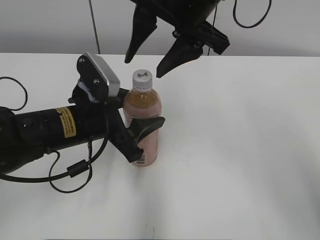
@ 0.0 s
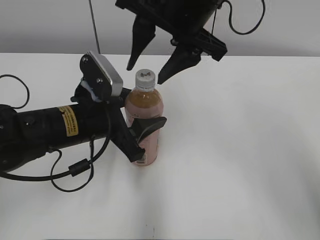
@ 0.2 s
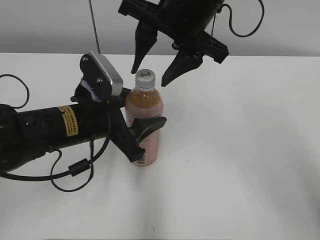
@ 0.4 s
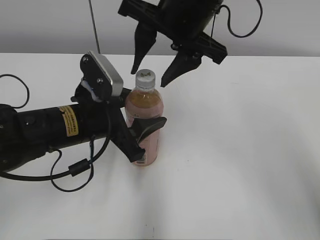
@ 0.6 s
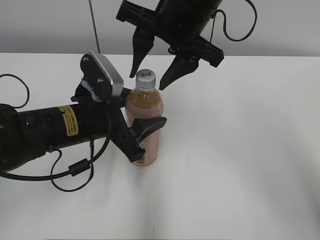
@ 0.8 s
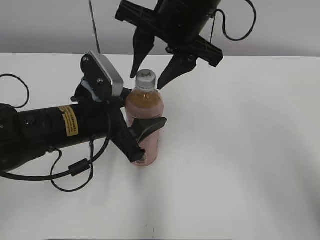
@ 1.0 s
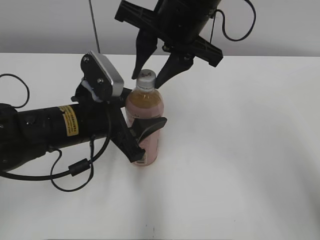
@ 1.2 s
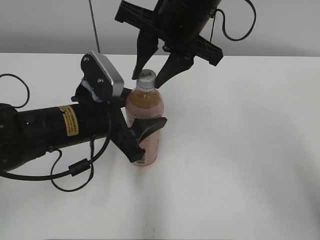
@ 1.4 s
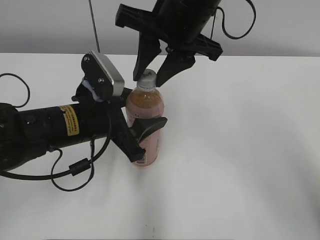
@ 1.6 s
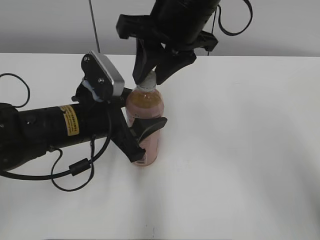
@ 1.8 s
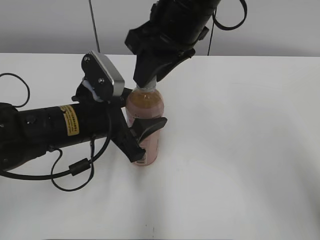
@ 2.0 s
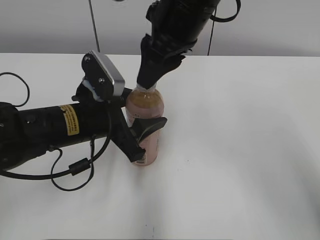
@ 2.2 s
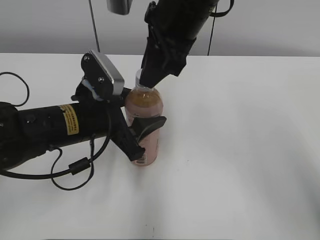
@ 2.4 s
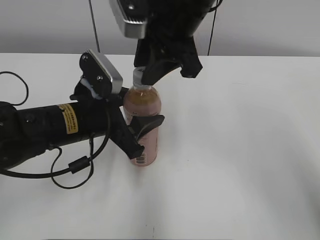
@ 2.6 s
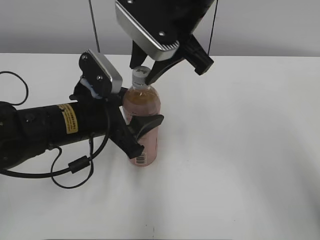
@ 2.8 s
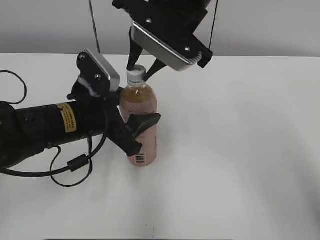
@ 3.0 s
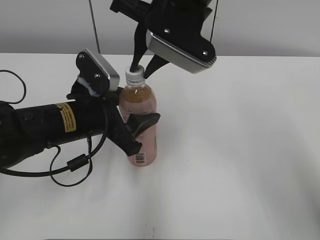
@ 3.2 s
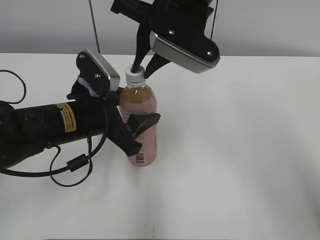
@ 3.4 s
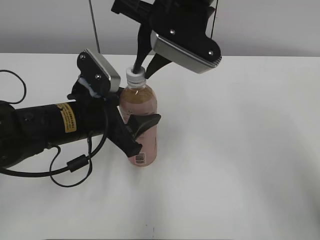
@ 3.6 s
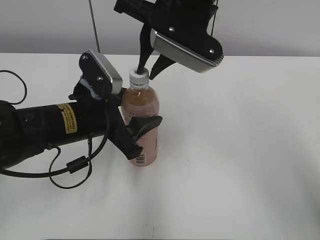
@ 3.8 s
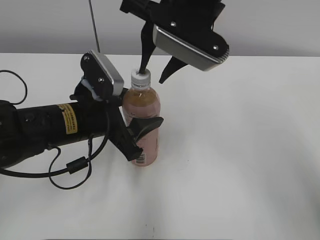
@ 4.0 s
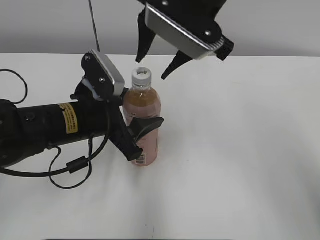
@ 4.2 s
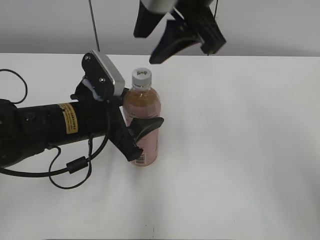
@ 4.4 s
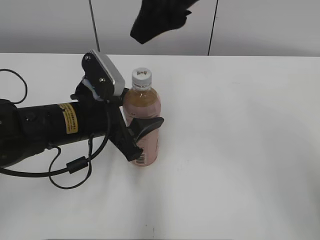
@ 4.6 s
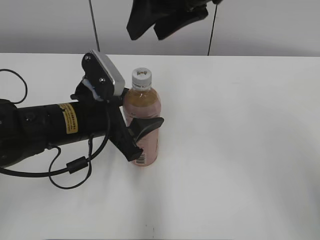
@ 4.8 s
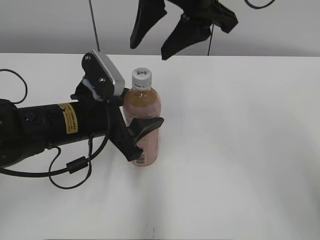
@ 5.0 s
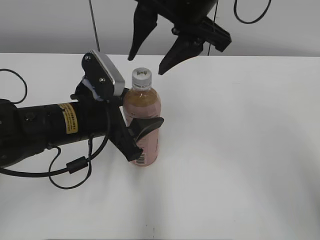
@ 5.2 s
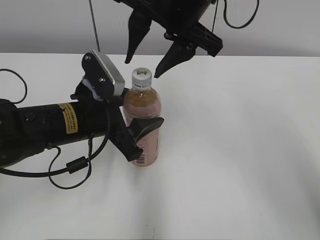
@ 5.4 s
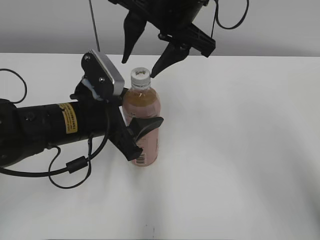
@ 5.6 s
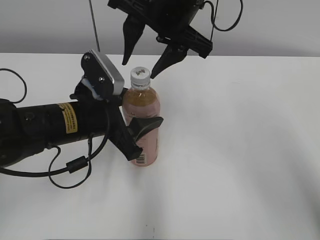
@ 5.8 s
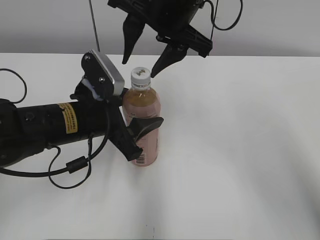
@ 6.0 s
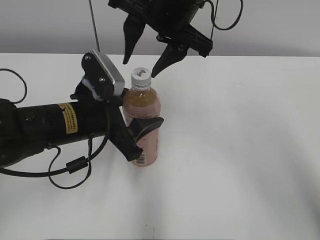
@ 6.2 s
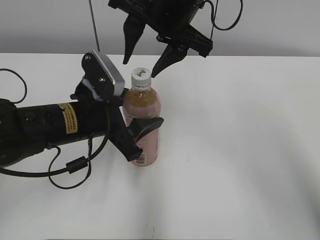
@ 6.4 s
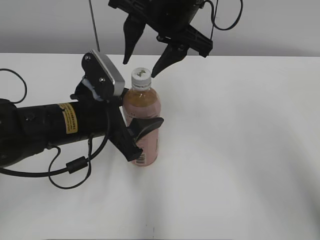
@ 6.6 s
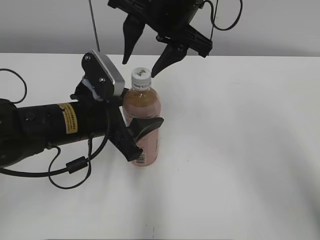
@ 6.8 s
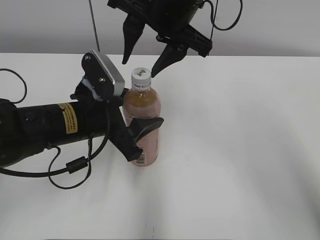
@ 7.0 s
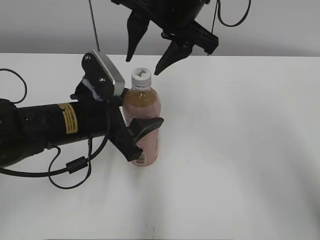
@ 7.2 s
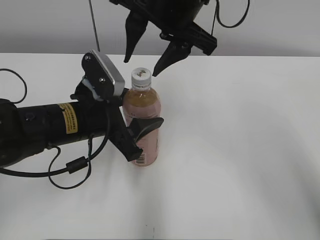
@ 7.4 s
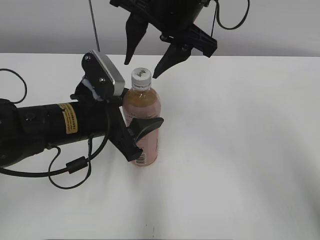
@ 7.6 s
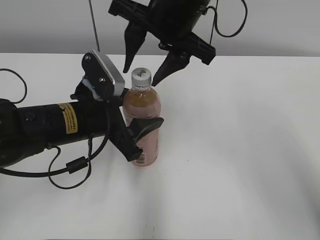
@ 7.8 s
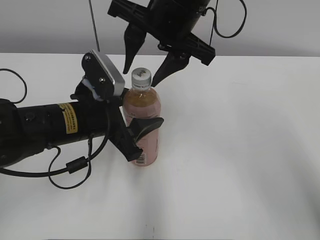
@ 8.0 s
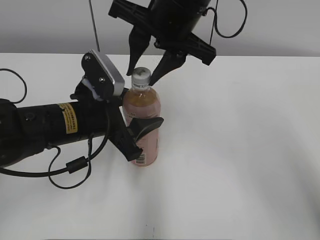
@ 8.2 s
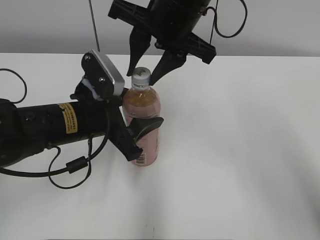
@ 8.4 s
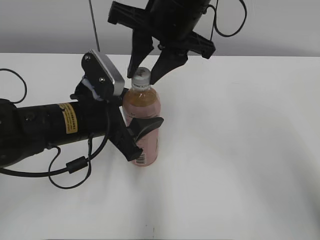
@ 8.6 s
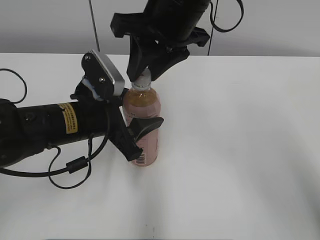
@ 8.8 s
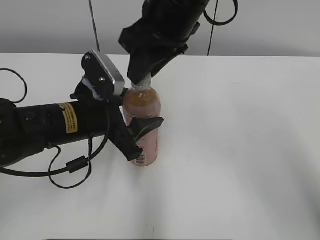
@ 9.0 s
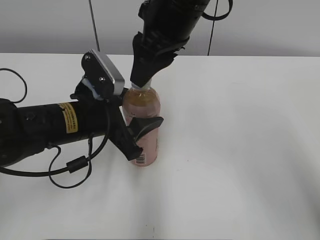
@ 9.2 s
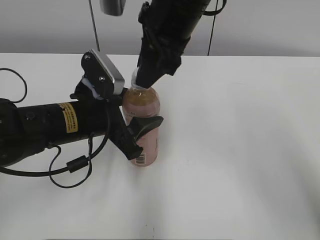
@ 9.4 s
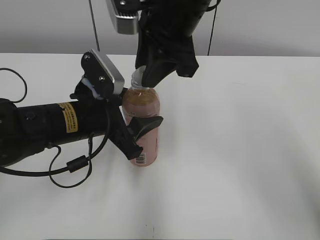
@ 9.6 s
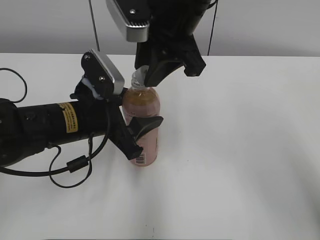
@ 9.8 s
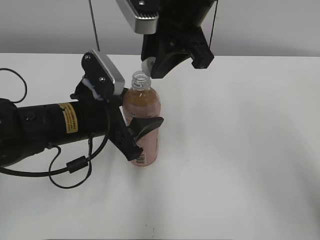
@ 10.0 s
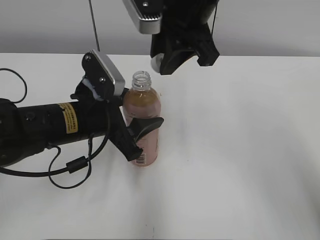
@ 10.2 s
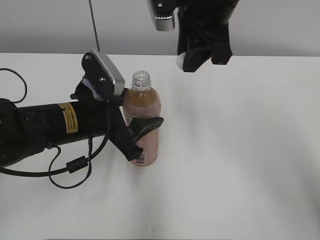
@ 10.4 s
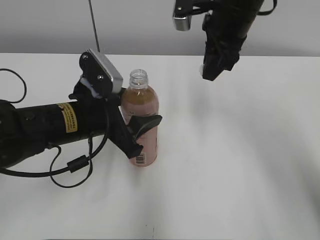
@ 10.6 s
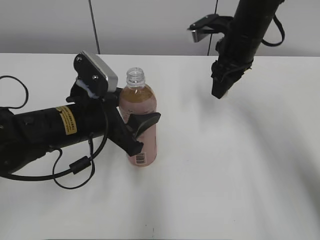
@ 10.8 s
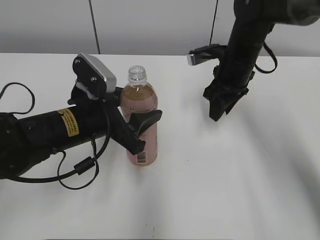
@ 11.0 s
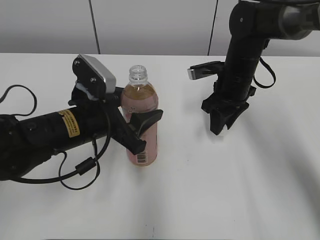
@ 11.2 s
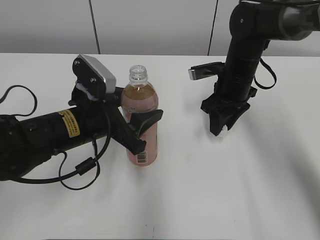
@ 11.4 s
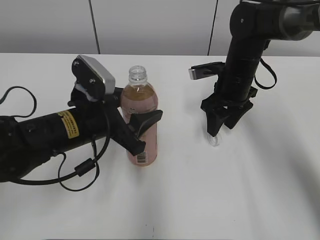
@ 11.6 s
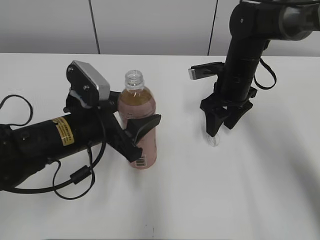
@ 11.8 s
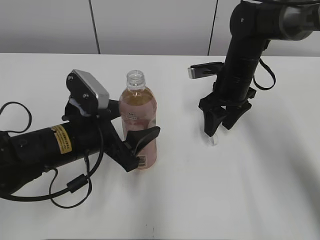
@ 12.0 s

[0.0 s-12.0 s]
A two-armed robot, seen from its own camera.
0.0 to 1.6 s: The right gripper closes.
3.0 to 4.4 s: The right gripper changes place by roughly 5 cm, and opens up.
4.4 to 6.0 s: The right gripper moves about 5 cm.
6.0 to 7.6 s: Both grippers stay put.
7.6 to 9.0 s: The right gripper closes its fingers.
10.4 to 12.0 s: The right gripper goes approximately 20 cm downward and to the right, and opens its fingers.

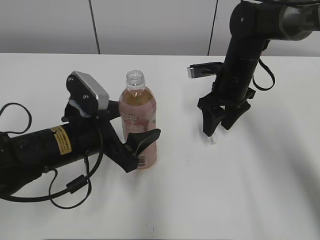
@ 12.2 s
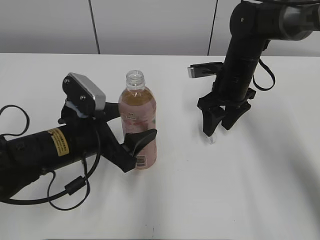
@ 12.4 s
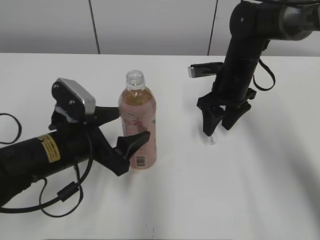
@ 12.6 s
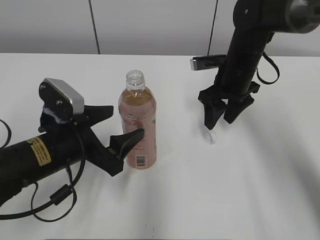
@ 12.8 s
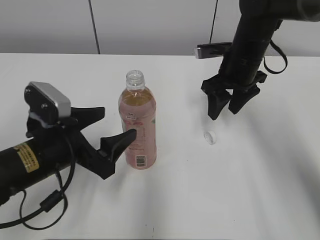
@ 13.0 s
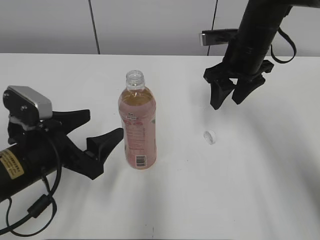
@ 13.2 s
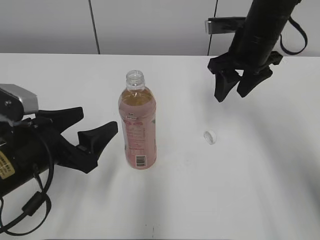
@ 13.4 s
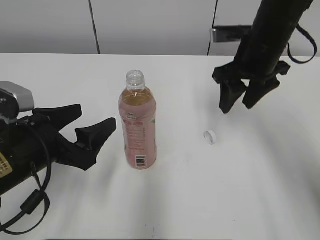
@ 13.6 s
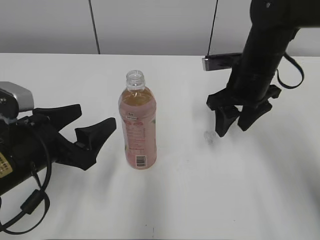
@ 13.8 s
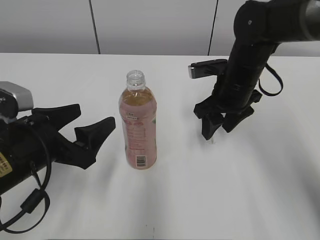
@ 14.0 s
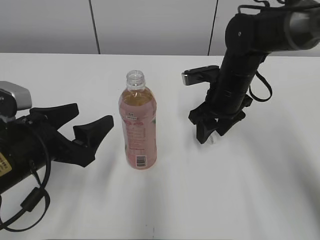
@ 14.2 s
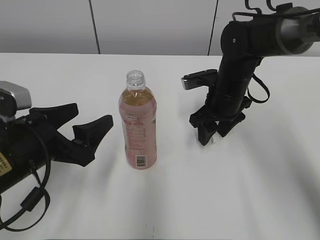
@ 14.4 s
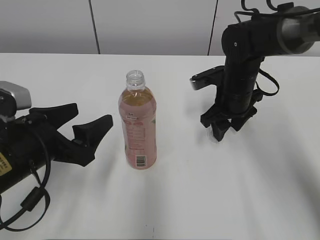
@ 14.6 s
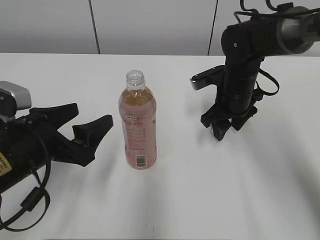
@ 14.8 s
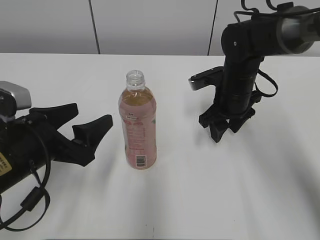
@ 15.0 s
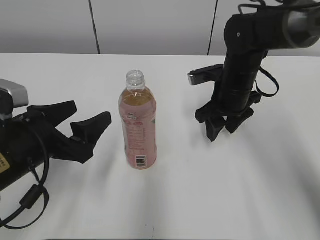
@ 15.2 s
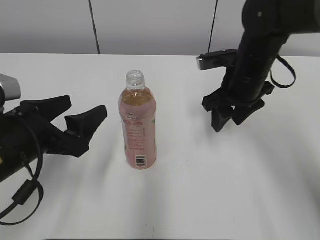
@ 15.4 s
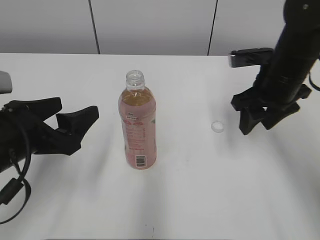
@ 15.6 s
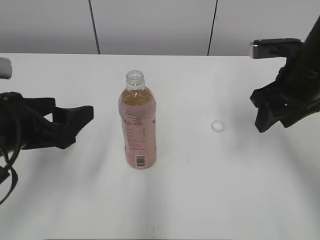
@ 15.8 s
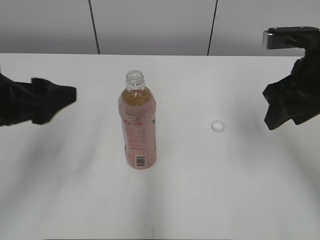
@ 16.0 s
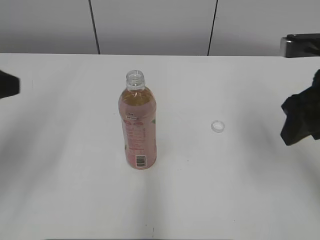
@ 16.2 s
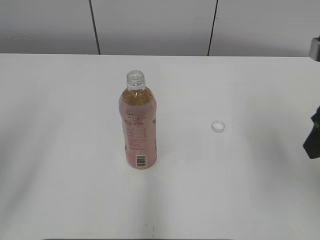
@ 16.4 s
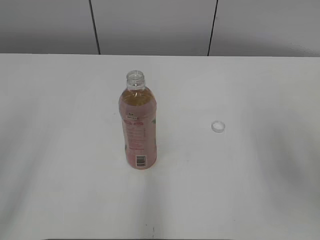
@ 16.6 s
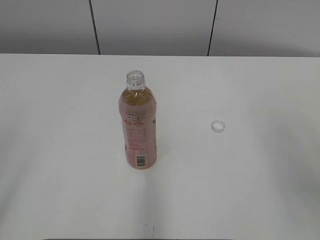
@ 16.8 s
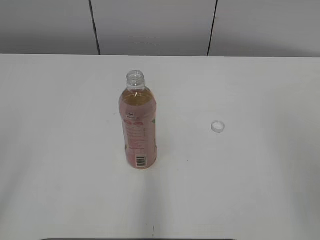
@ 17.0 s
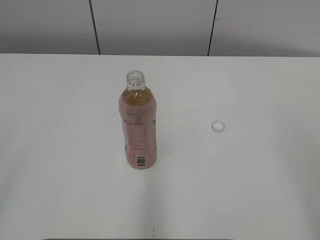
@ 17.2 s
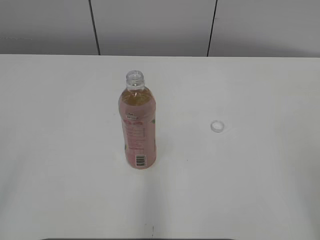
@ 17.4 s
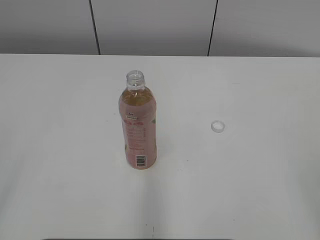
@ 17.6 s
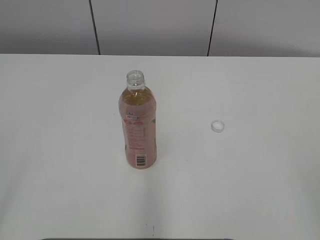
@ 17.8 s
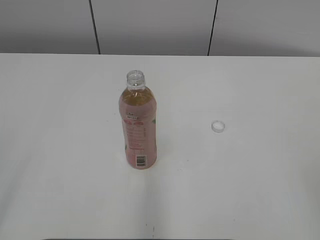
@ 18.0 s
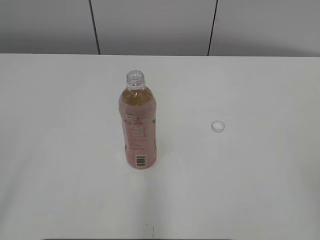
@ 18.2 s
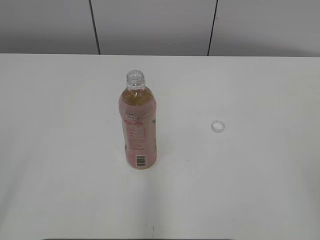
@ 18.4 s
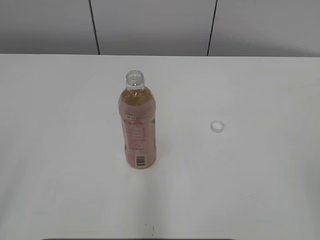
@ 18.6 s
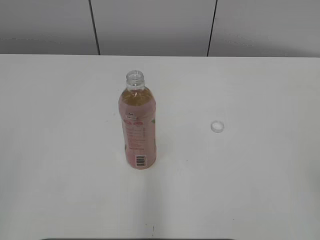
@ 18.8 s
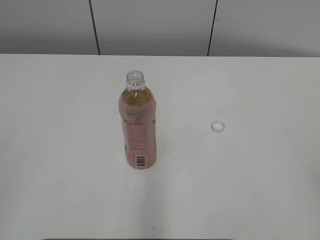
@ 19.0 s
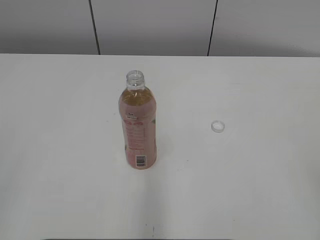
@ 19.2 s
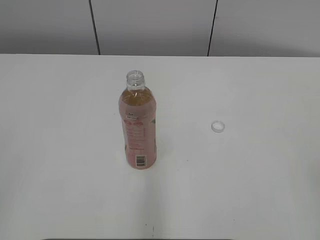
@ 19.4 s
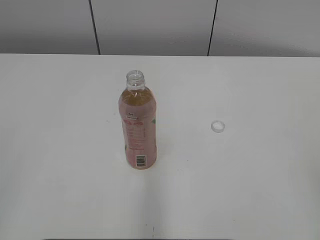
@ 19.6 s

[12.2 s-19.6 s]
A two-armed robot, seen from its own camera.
12.2 to 13.6 s: The left gripper travels to the left by roughly 5 cm, while the right gripper shifts some 10 cm upward.
13.6 to 15.2 s: The right gripper heads downward, covering roughly 10 cm.
15.2 to 16.6 s: The left gripper moves upward, backward and to the left, roughly 25 cm. The right gripper goes approximately 30 cm backward, upward and to the right.
16.6 to 18.2 s: The right gripper is displaced backward by some 20 cm, and closes.
